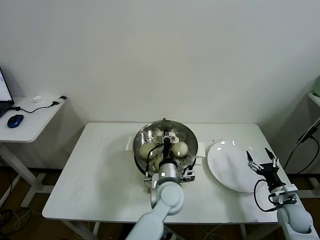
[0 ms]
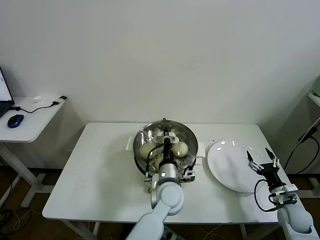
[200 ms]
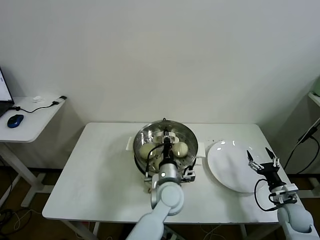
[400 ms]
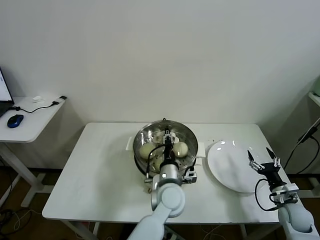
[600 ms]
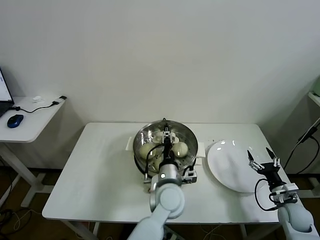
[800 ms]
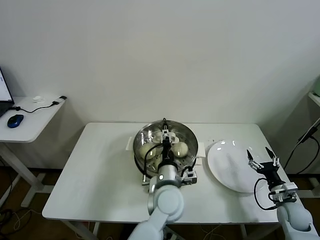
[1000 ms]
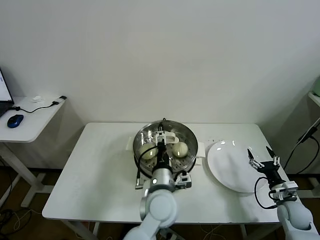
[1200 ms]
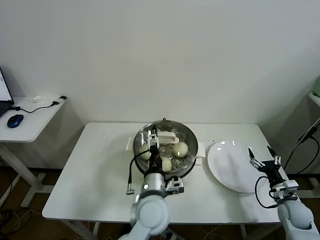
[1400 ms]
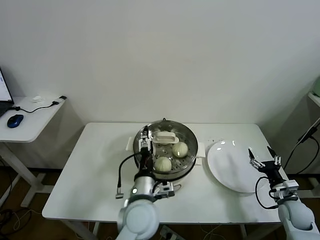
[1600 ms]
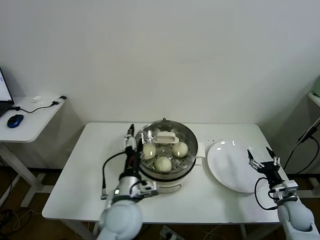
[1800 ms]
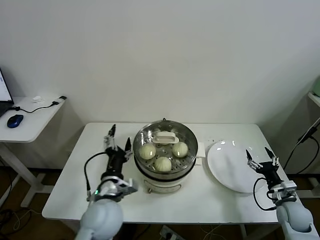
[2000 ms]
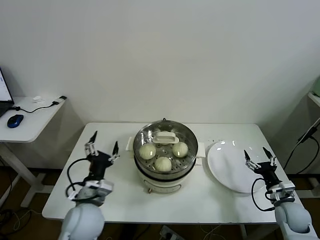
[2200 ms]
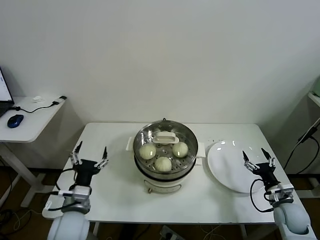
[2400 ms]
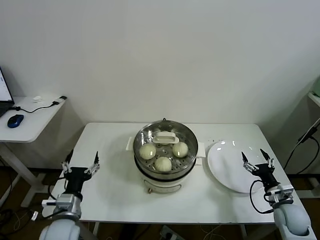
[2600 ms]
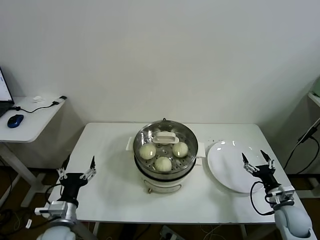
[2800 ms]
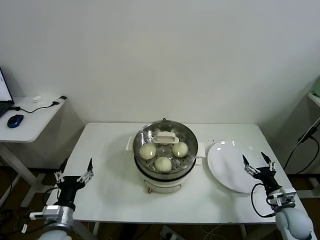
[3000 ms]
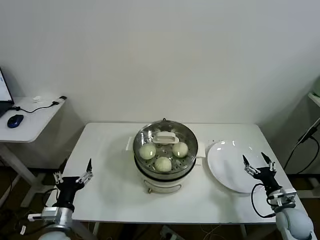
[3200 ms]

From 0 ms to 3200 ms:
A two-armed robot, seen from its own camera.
Task of the whole recording: take steamed baozi put them in steamer.
From 0 ms to 1600 ms: The left gripper shifts roughly 10 cm backward and to the left, and opens up.
From 1600 ms to 3200 ms: The left gripper moves to the left, roughly 25 cm.
